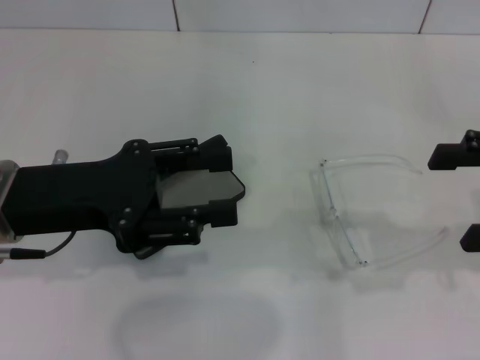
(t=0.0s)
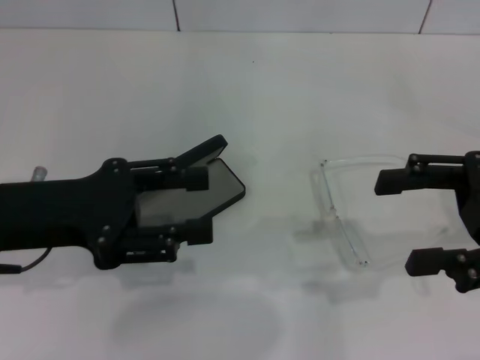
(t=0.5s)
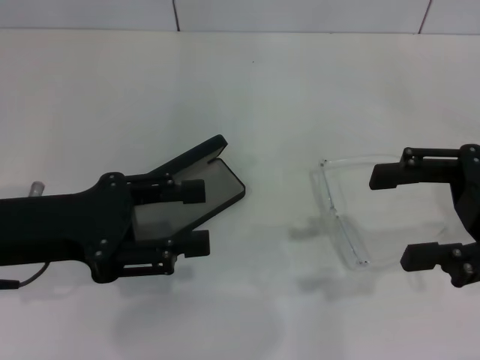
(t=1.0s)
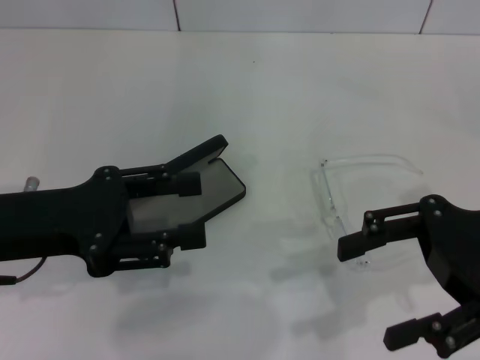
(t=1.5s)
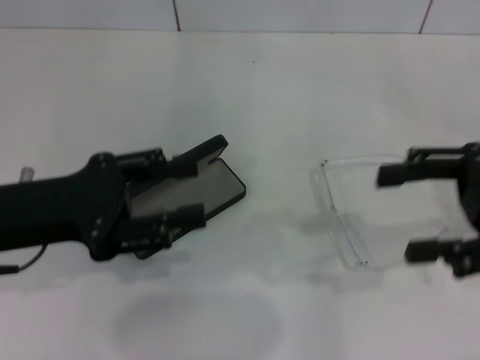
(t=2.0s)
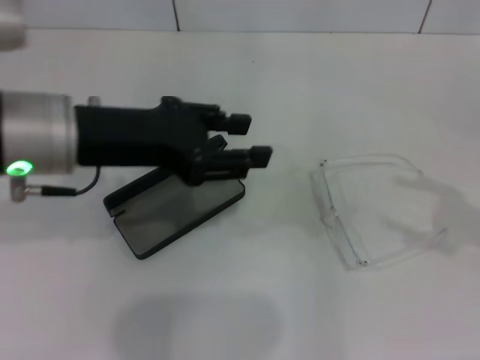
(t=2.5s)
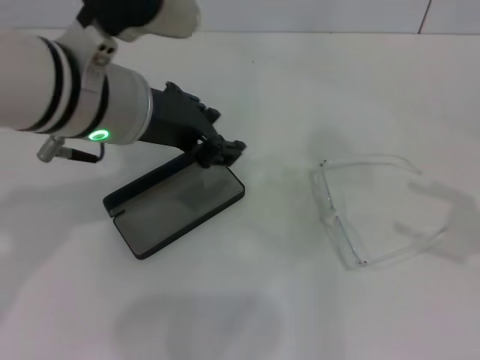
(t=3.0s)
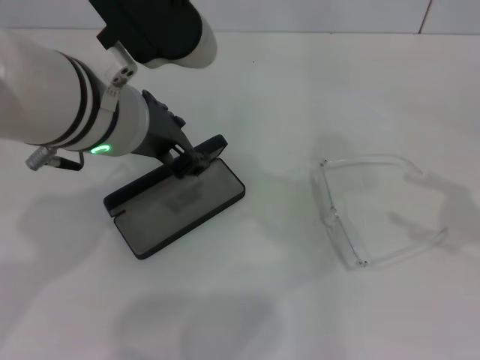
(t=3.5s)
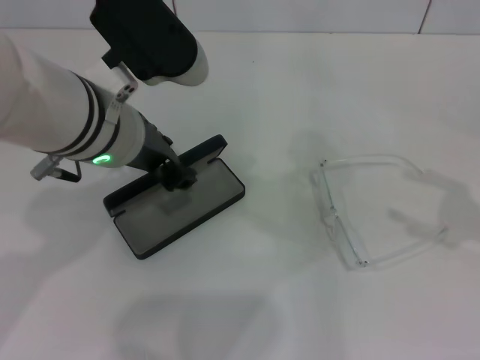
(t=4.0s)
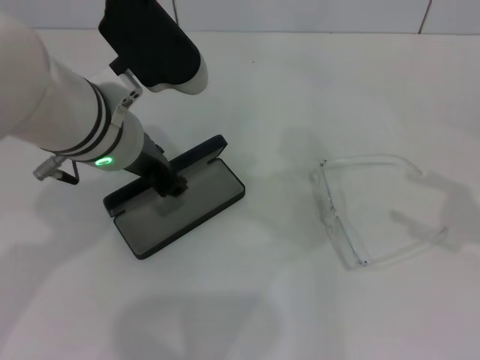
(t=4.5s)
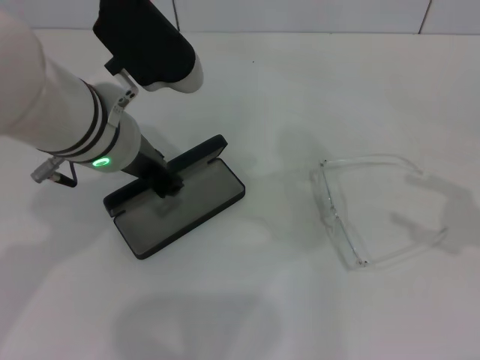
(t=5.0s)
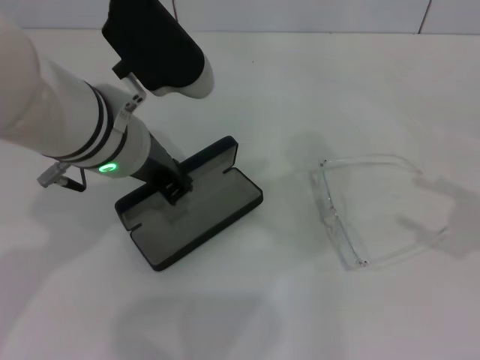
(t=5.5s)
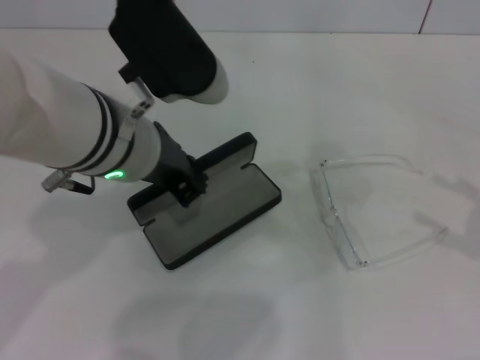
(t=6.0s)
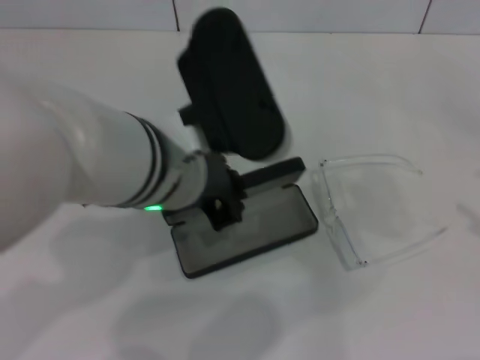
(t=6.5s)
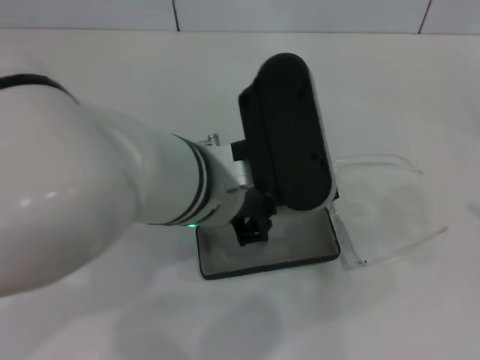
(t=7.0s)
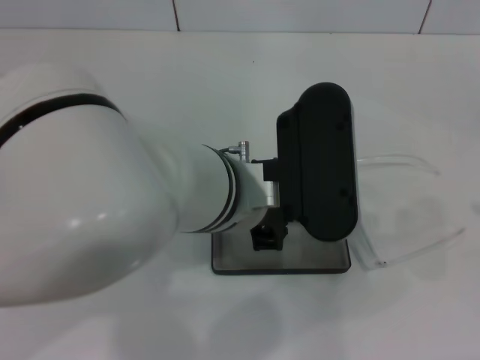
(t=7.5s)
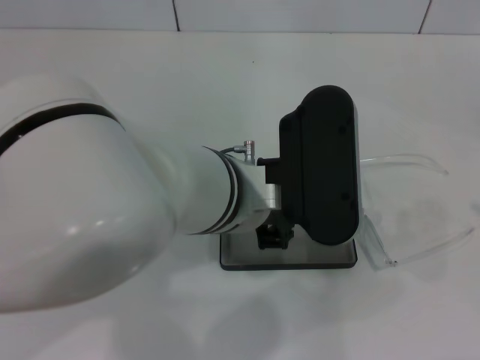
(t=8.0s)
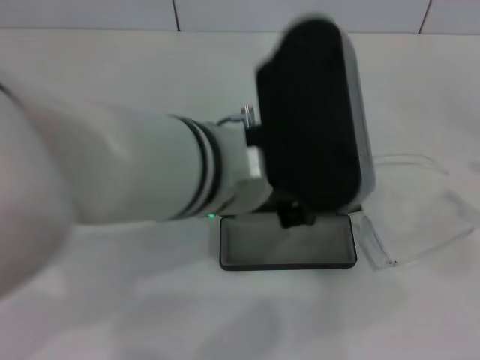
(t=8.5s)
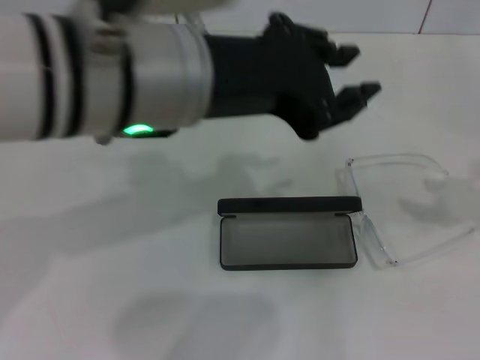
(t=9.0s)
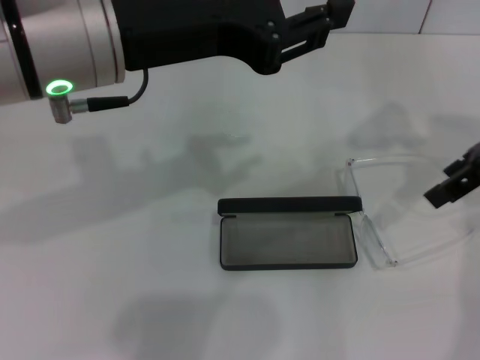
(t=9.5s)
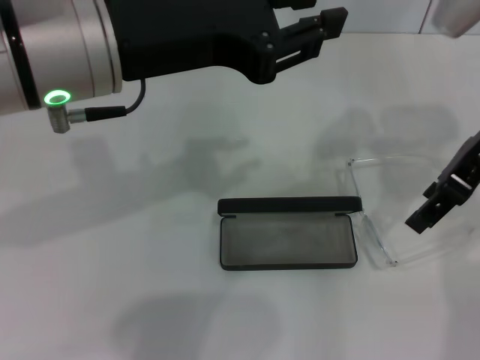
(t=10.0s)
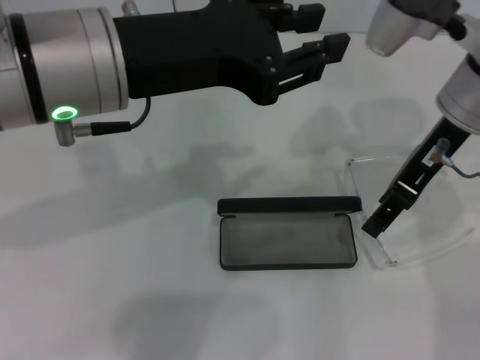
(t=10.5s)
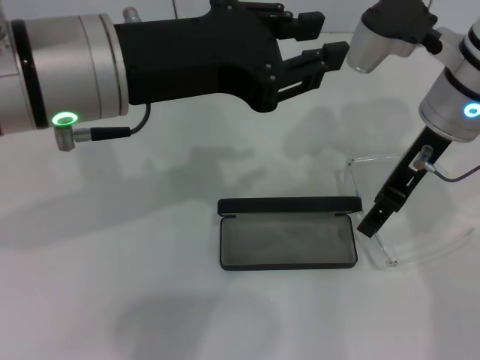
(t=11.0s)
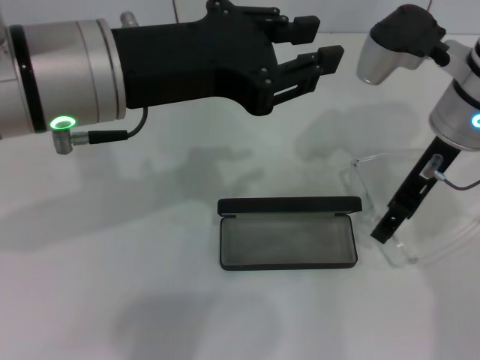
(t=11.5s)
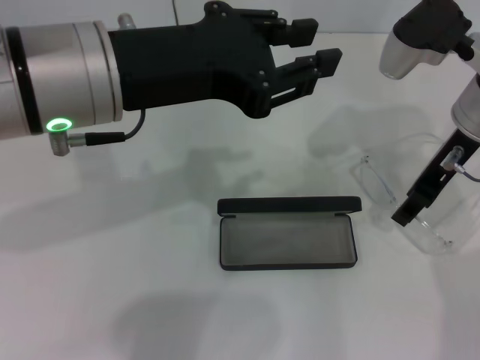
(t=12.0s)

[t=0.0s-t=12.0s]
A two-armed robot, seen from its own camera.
Step, t=0.0s to t=5.0s: Grab the glasses case with your left hand.
Step, t=5.5s to t=8.0s: Place the glasses case in the center of the table with your left hand.
t=2.0s to t=4.0s: The left gripper shifts approximately 15 cm to the right and forward. Meanwhile the right gripper travels to the right by about 10 cm.
t=4.0s to t=6.0s: The left gripper closes its fingers.
t=6.0s to t=8.0s: The right gripper shifts by about 5 cm. The left gripper travels to the right by some 10 cm.
t=8.0s to t=10.0s: The left gripper moves to the left and upward, some 15 cm; the right gripper moves to the left, forward and upward, roughly 30 cm.
t=10.0s to t=12.0s: The right gripper shifts by about 5 cm.

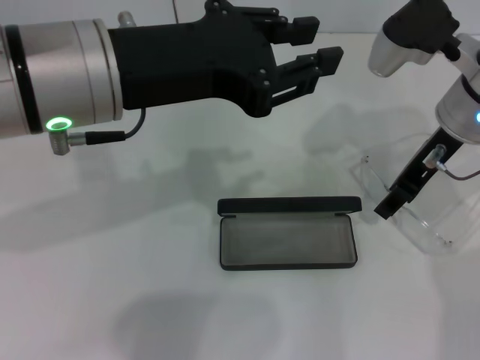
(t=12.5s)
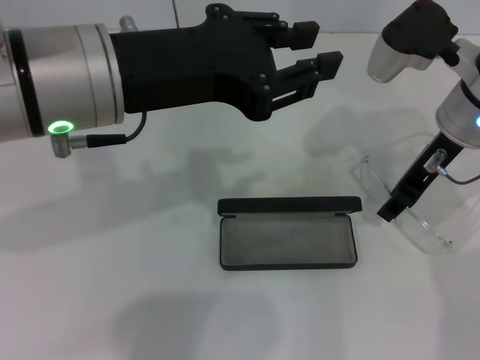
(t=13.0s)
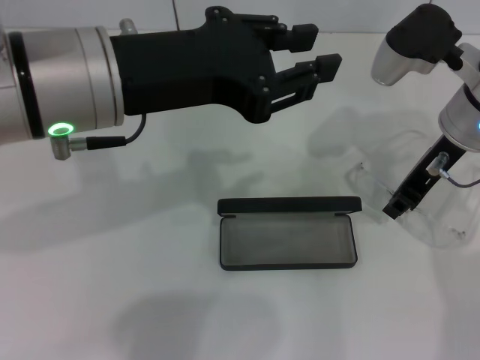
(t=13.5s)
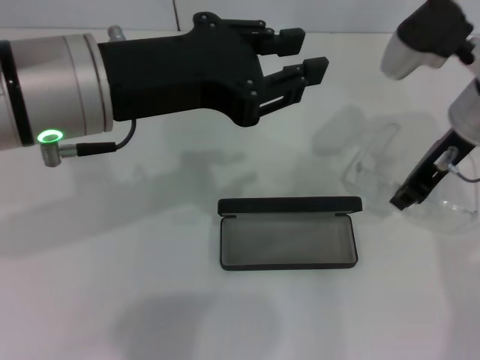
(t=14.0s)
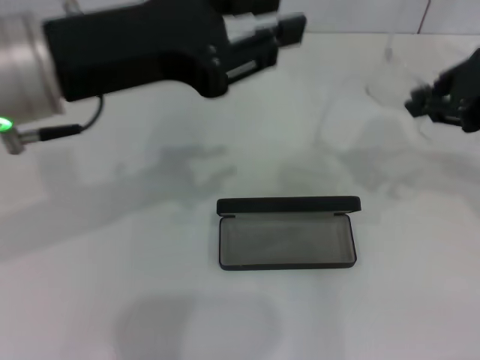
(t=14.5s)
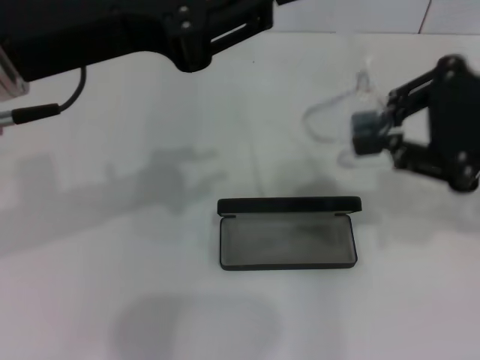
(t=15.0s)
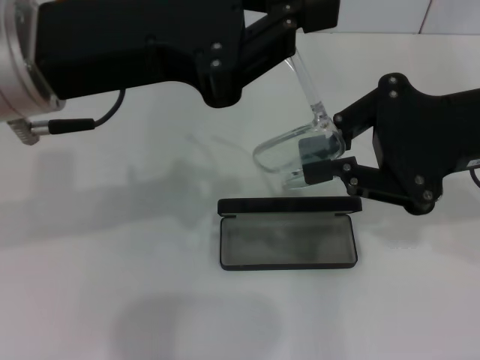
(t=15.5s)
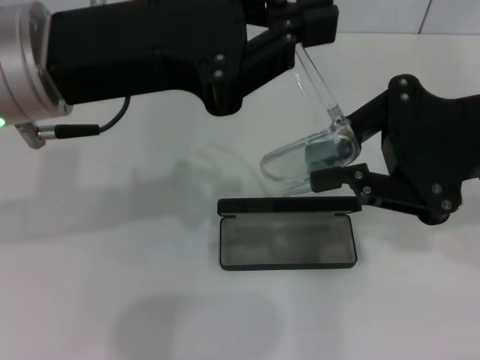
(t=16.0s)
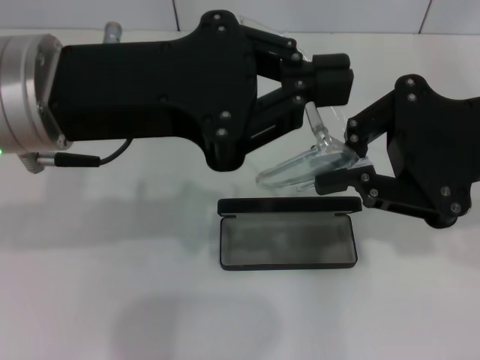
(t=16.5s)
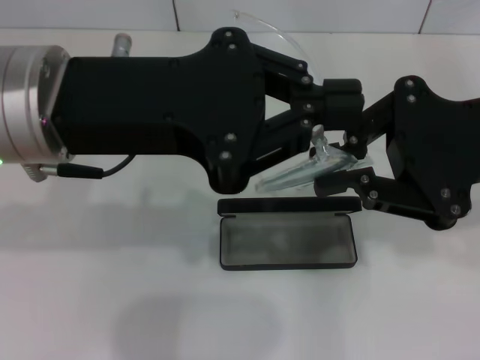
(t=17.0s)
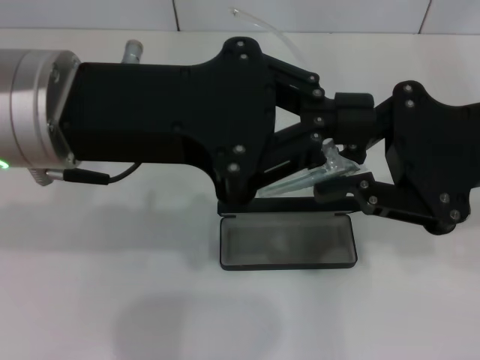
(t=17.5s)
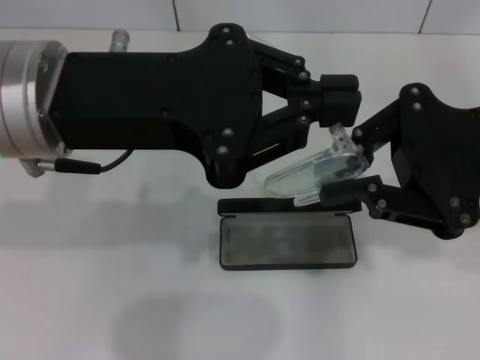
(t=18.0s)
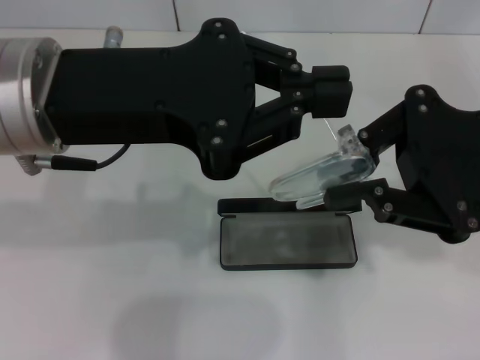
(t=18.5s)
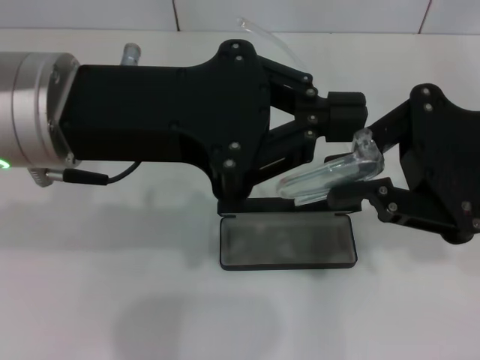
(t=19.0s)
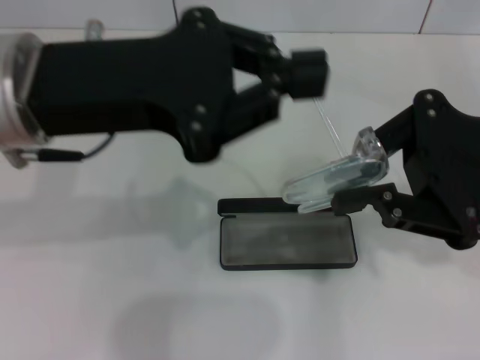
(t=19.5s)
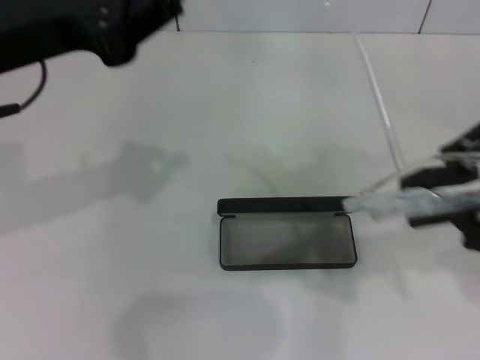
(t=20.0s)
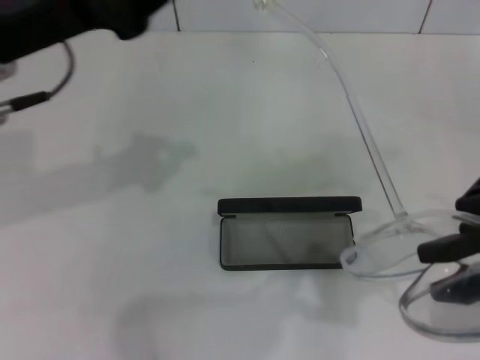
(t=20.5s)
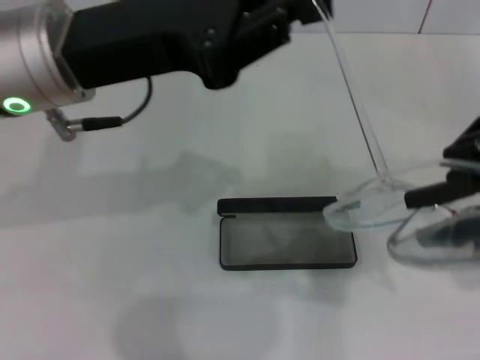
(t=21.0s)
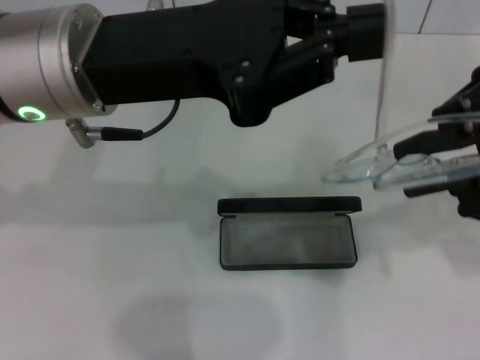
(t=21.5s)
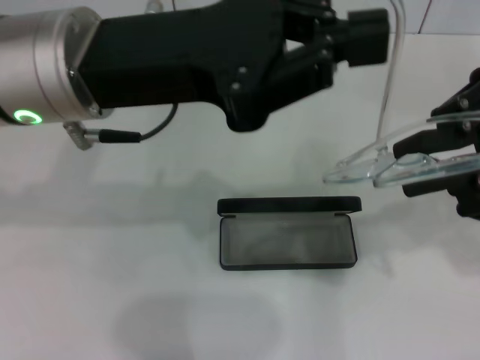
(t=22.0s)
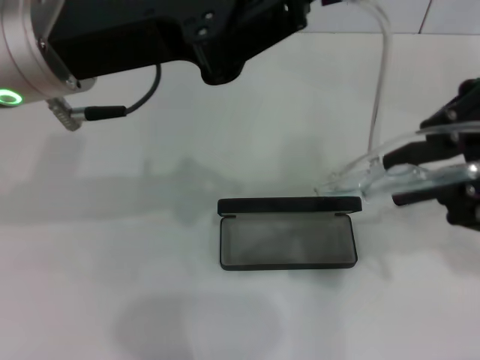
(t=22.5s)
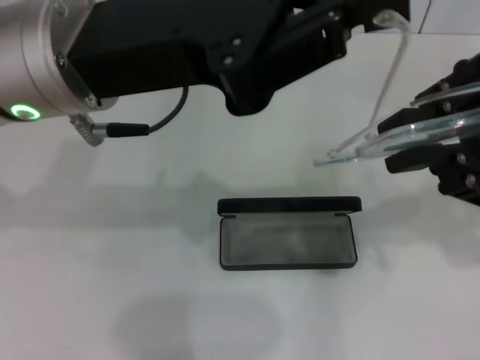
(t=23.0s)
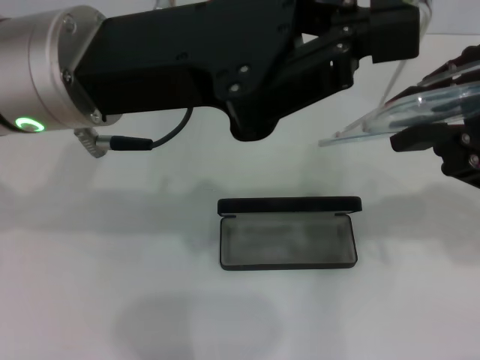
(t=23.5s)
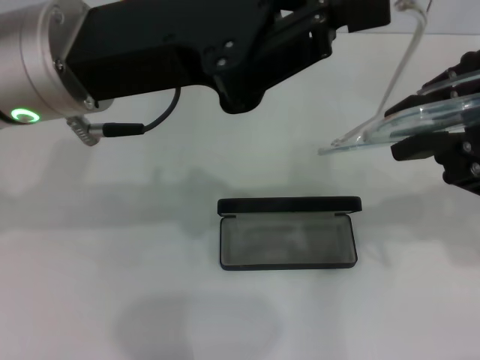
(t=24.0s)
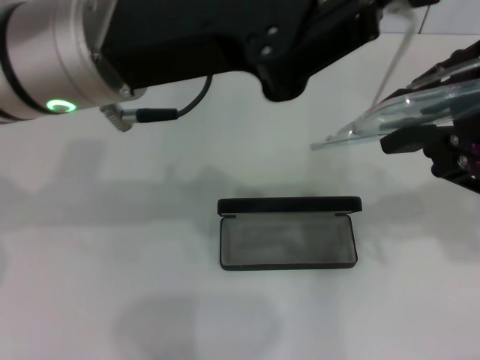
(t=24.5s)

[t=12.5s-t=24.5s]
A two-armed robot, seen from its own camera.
t=12.5s to t=14.5s: The right gripper is displaced upward, to the right and backward by about 15 cm, and closes up.
t=14.5s to t=16.5s: The left gripper closes, while the right gripper moves about 5 cm.
t=16.5s to t=18.5s: There are only small adjustments of the grippers.
t=18.5s to t=20.5s: The left gripper shifts by roughly 5 cm.
t=20.5s to t=22.5s: The left gripper travels to the right by roughly 5 cm.

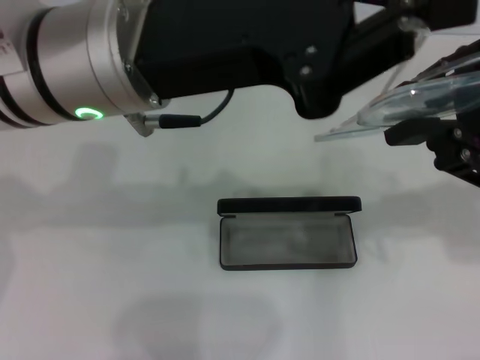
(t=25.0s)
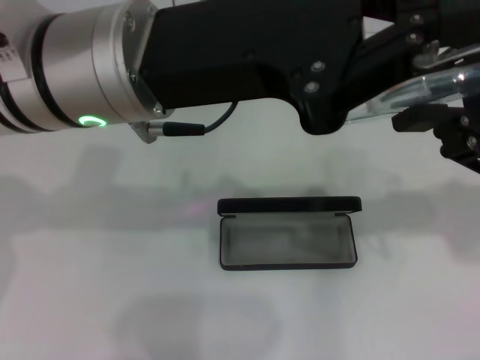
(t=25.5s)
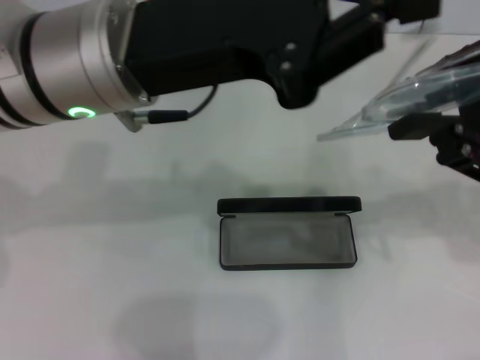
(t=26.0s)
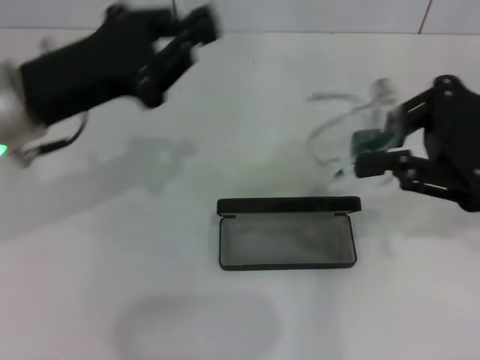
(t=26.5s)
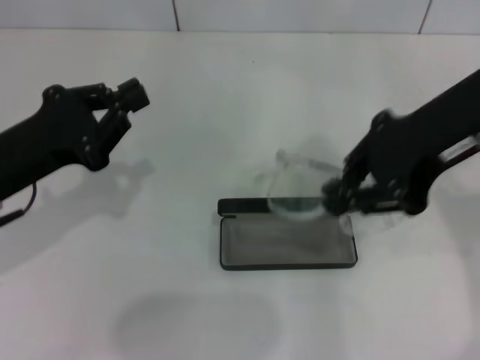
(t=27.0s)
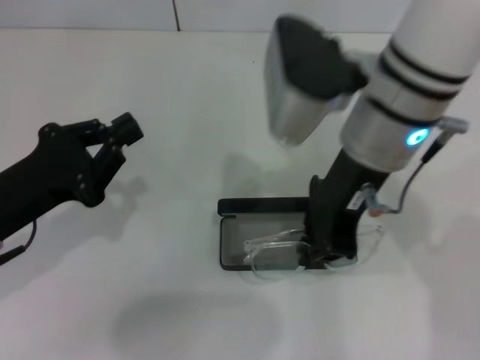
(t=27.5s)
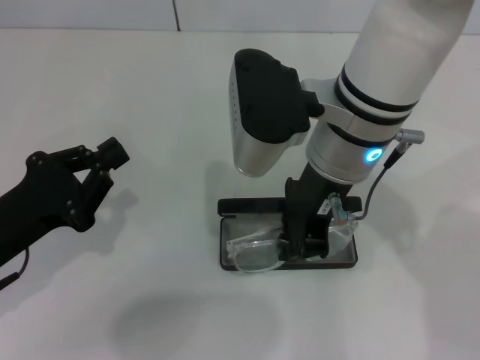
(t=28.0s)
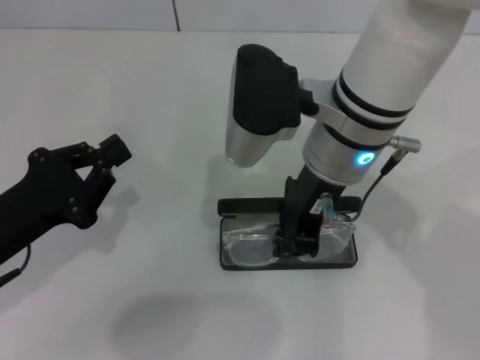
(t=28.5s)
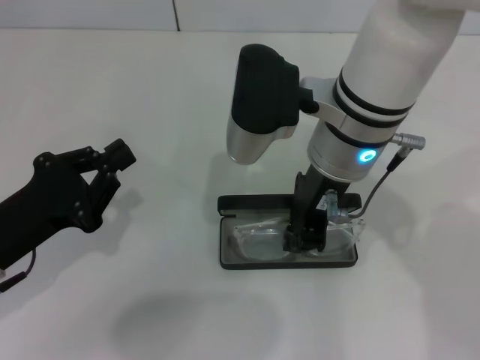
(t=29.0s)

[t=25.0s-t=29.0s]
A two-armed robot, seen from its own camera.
t=25.0s to t=27.0s: The left gripper goes approximately 20 cm to the left and downward; the right gripper moves to the left and upward, some 10 cm.
t=27.0s to t=29.0s: The right gripper goes about 15 cm to the left and downward; the left gripper travels downward by about 5 cm.
